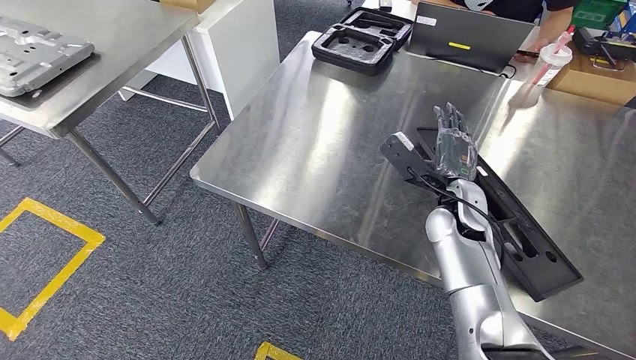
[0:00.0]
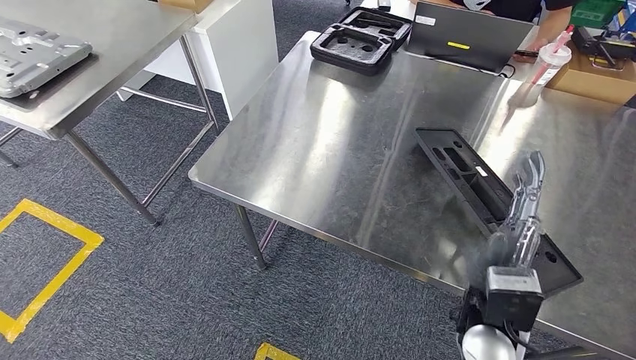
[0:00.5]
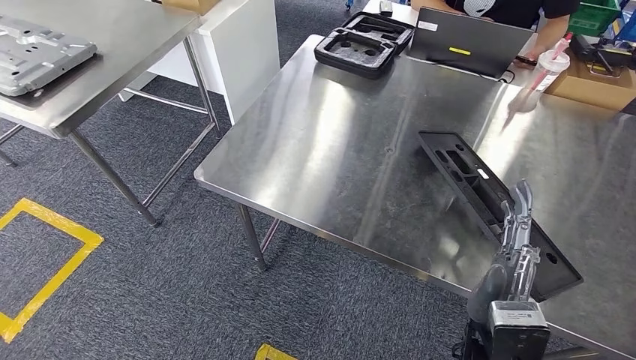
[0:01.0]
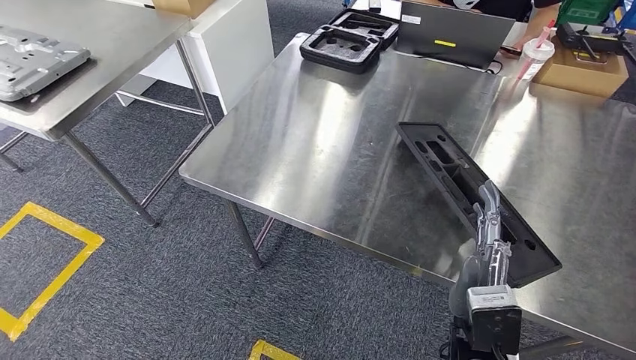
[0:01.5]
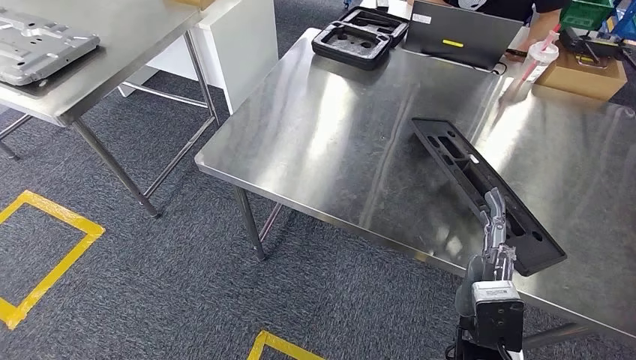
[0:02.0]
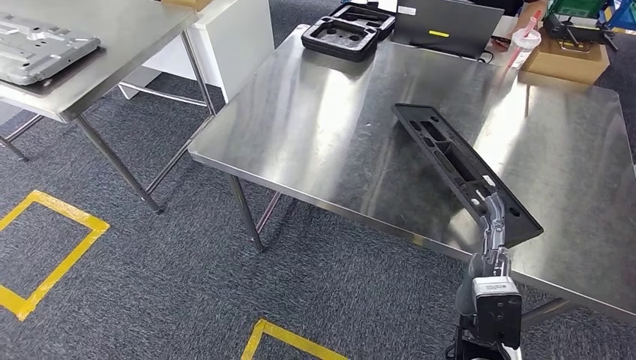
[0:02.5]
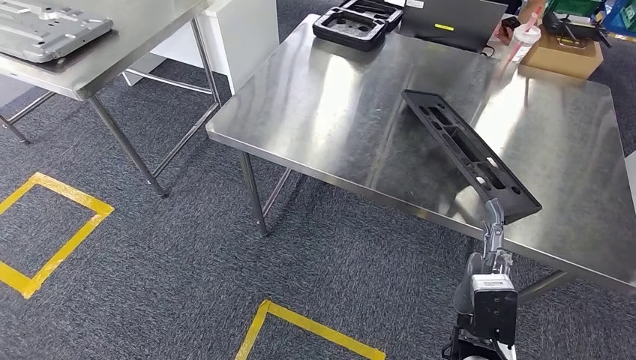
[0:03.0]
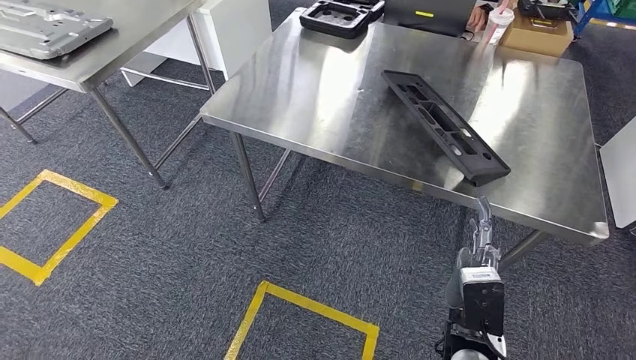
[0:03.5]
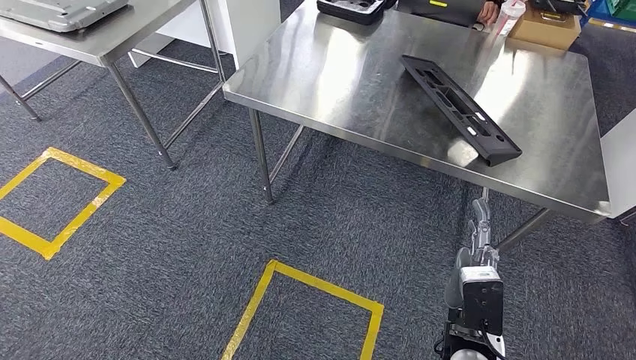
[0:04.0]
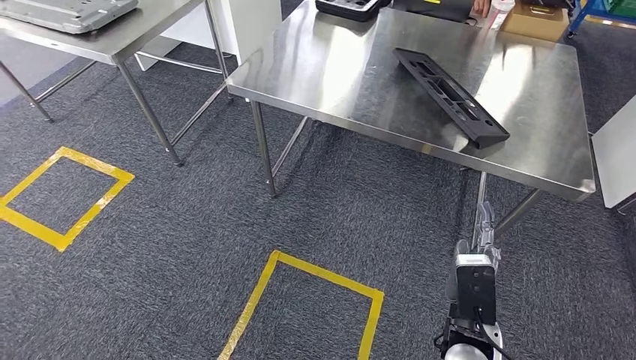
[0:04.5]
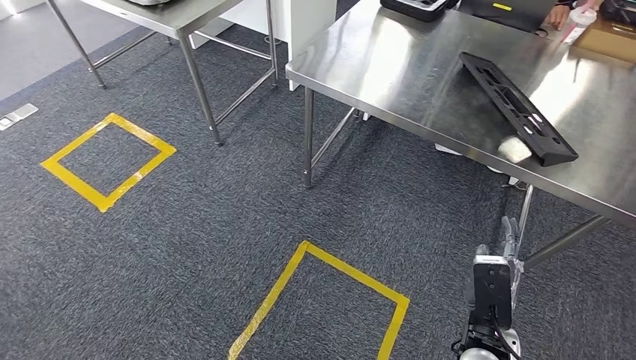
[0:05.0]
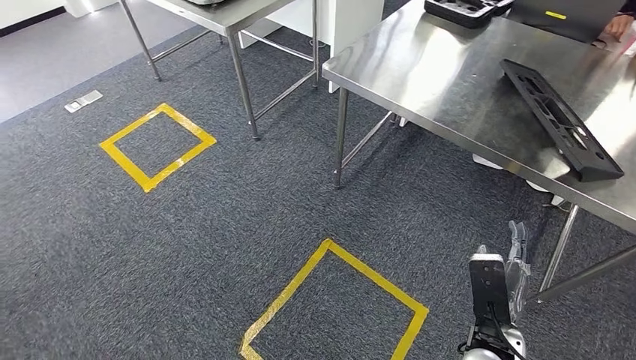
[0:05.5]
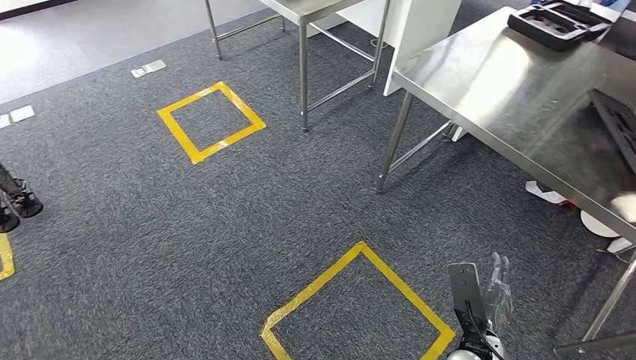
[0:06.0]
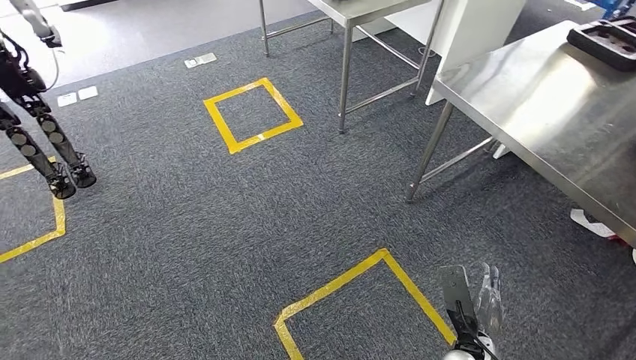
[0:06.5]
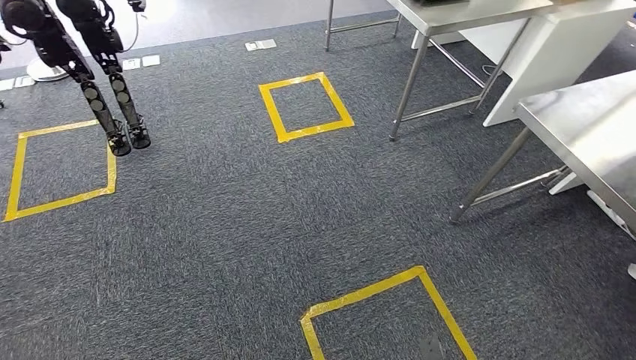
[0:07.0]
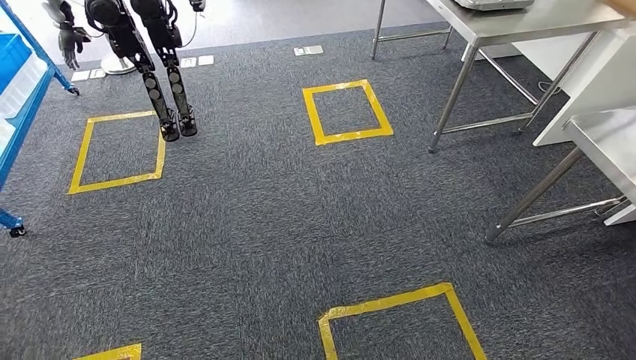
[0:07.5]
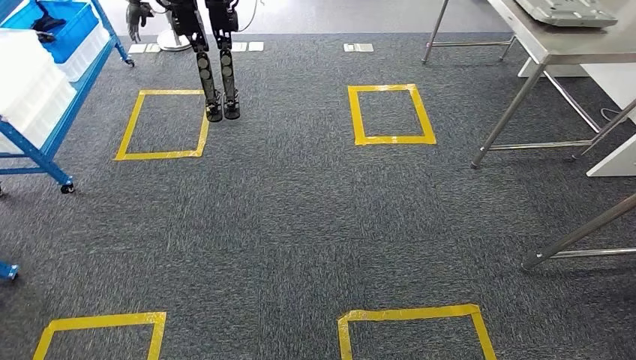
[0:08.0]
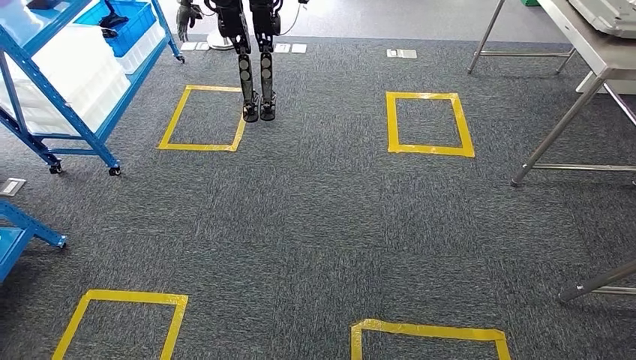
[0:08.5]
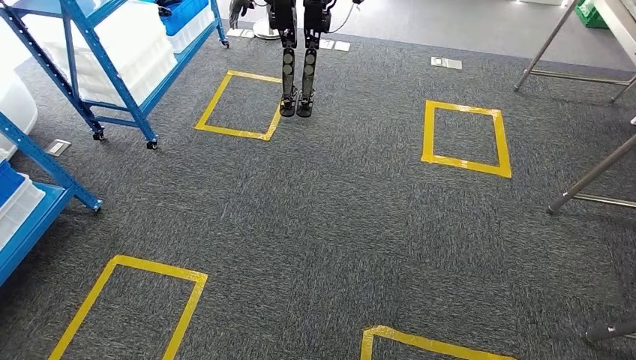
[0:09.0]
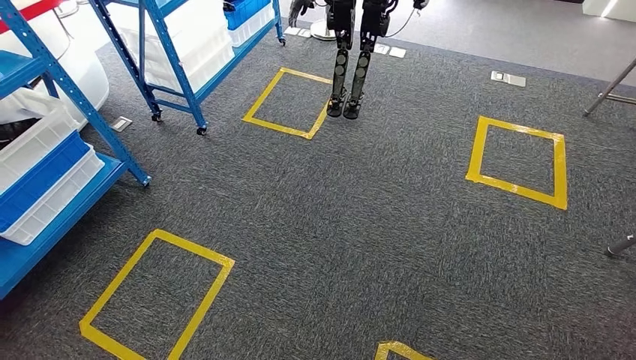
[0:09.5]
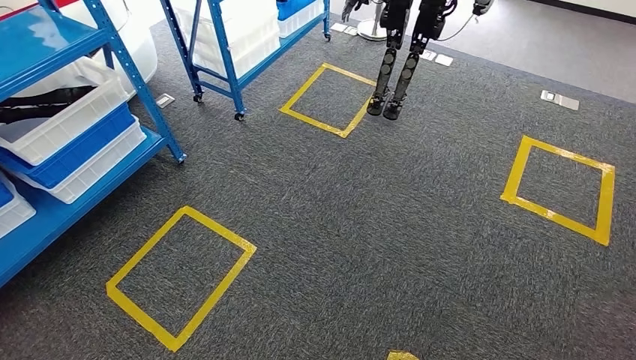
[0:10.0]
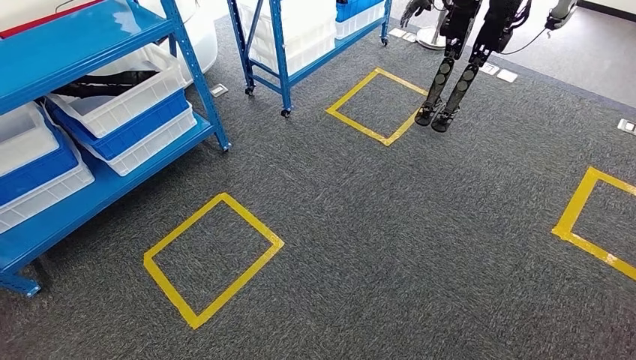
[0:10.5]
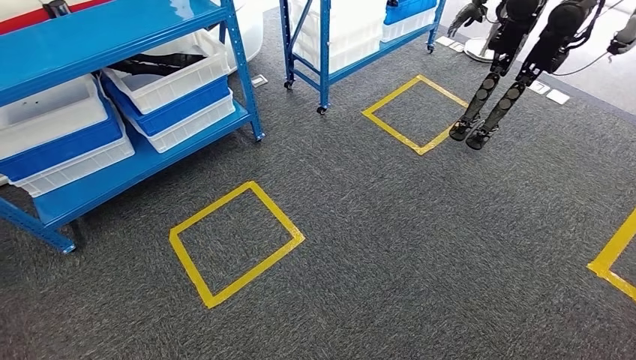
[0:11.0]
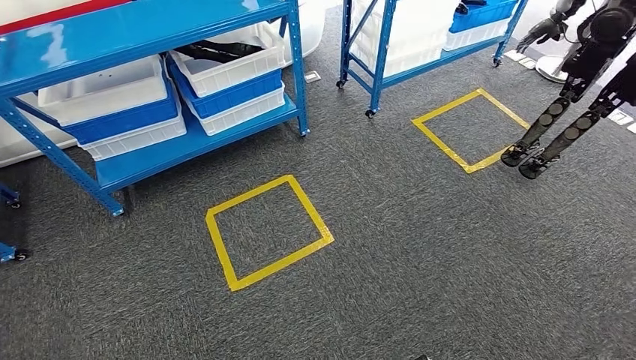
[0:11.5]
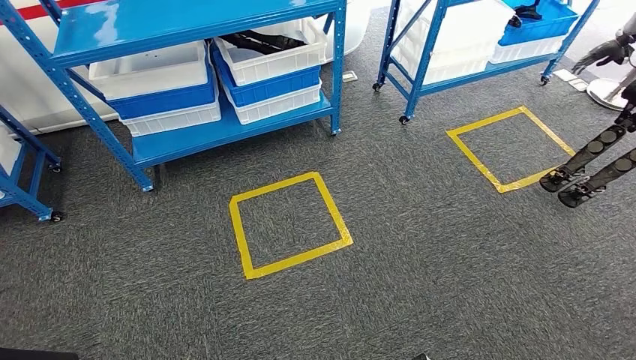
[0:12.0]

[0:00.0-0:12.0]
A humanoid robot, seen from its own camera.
Step, 0:00.0 to 0:06.5: Insert the large material into the corresponding hole on the workbench.

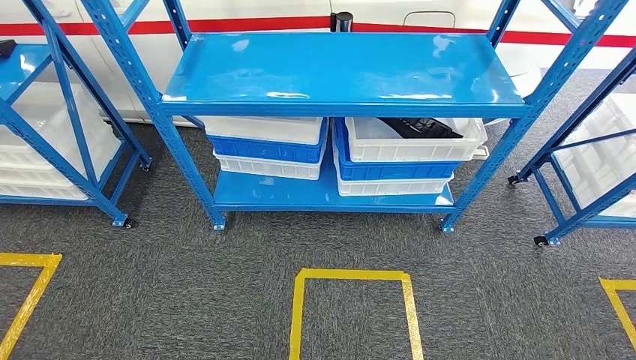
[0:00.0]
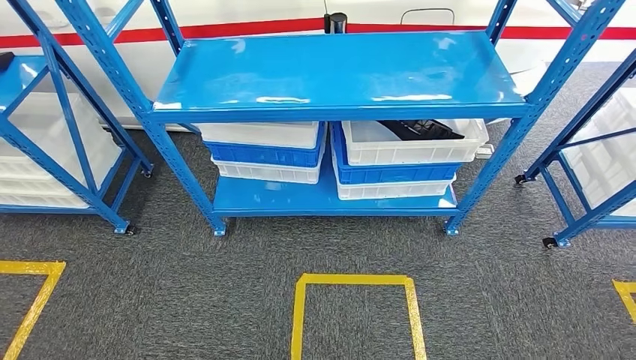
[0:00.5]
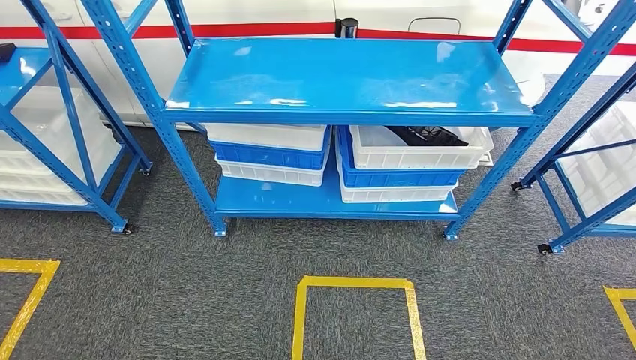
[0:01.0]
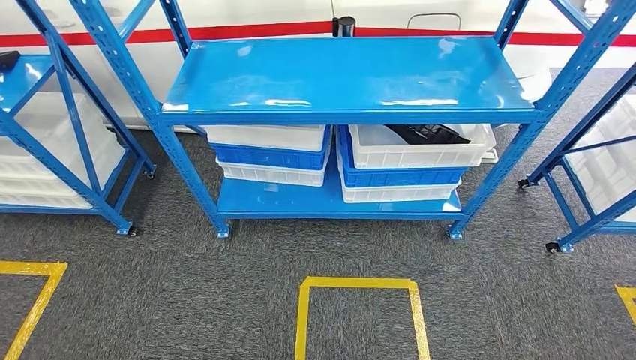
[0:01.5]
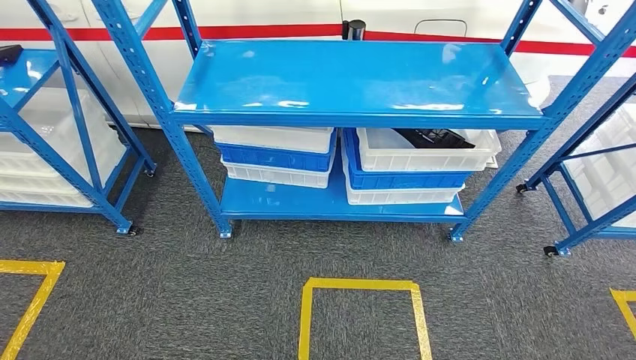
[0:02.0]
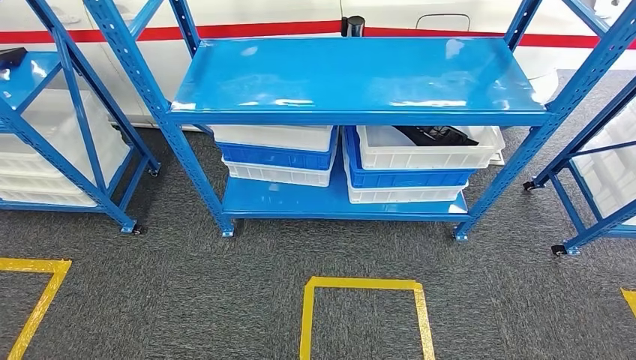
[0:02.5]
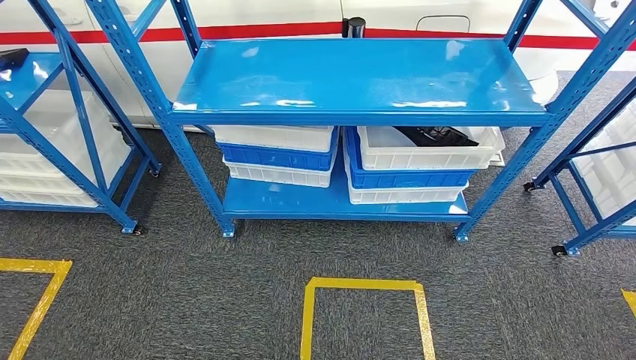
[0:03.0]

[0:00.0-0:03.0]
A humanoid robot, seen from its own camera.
Step, 0:00.0 to 0:03.0: Move to the initial position of the shelf.
